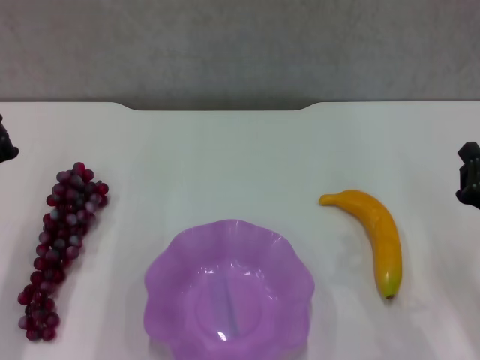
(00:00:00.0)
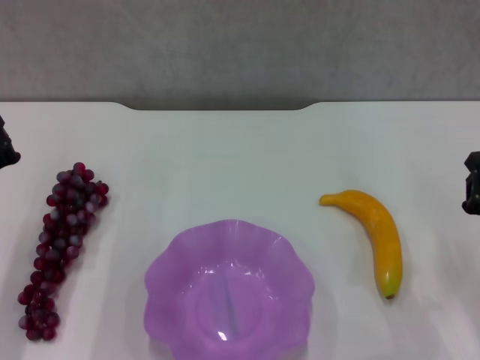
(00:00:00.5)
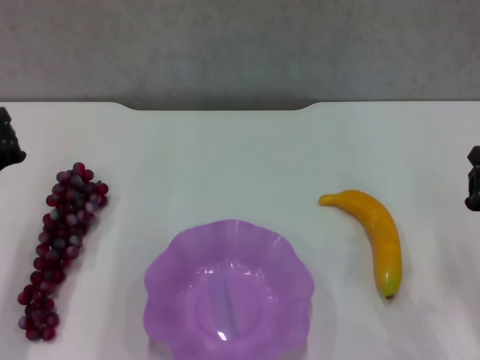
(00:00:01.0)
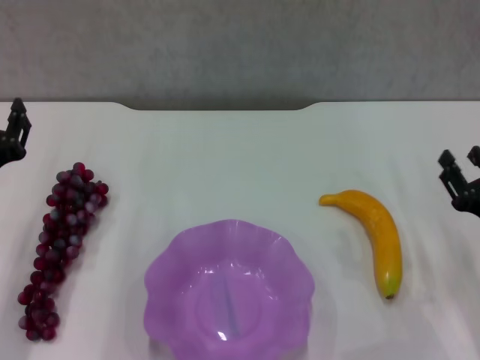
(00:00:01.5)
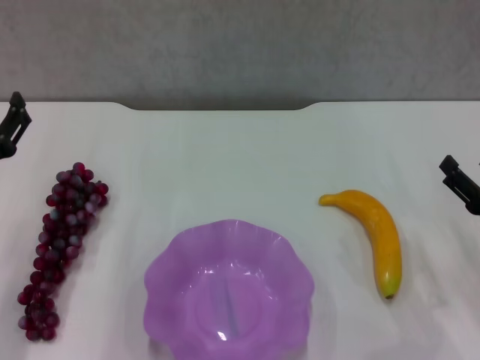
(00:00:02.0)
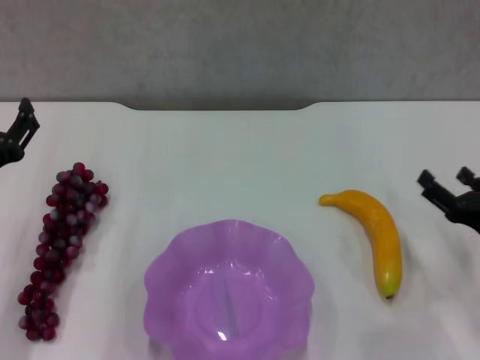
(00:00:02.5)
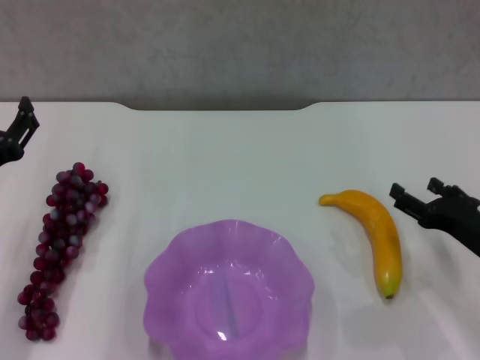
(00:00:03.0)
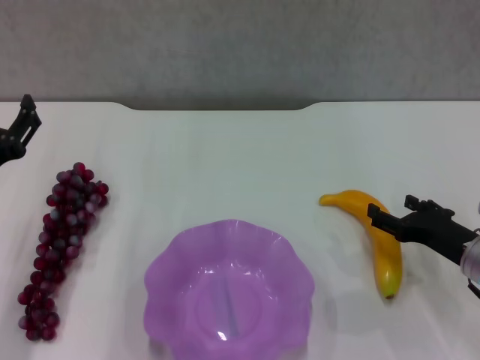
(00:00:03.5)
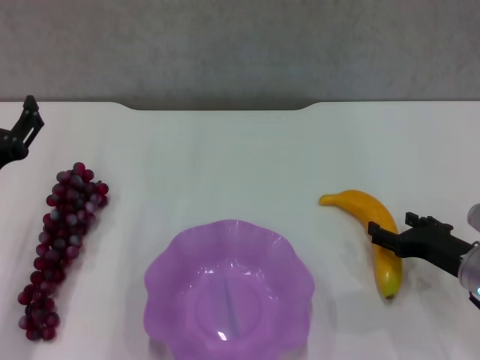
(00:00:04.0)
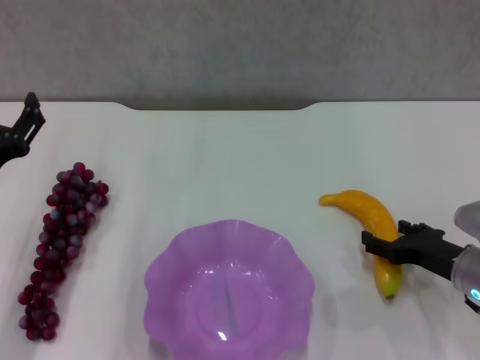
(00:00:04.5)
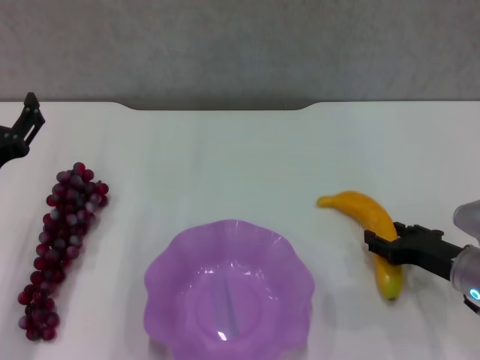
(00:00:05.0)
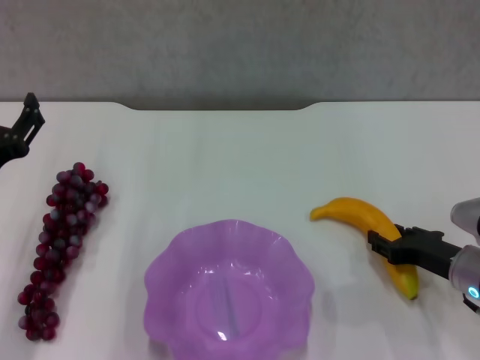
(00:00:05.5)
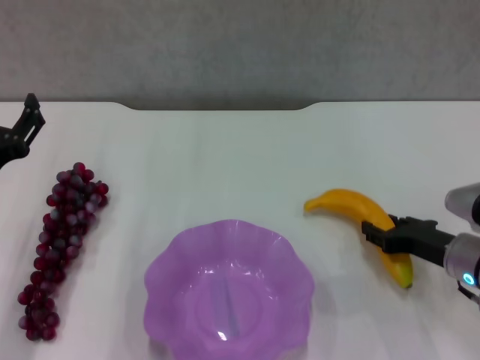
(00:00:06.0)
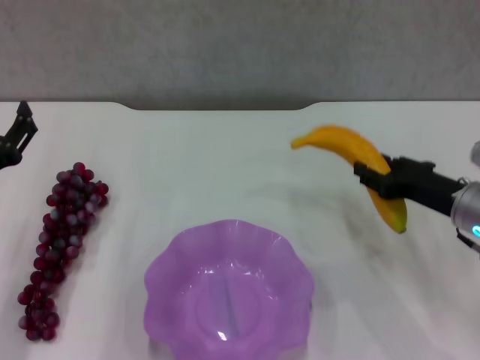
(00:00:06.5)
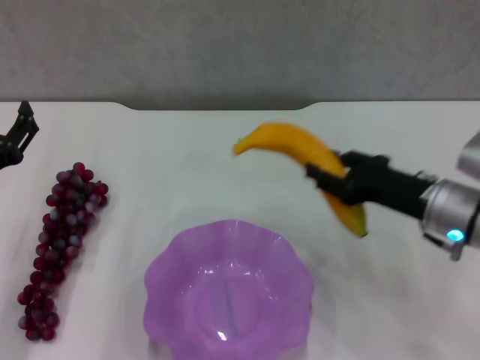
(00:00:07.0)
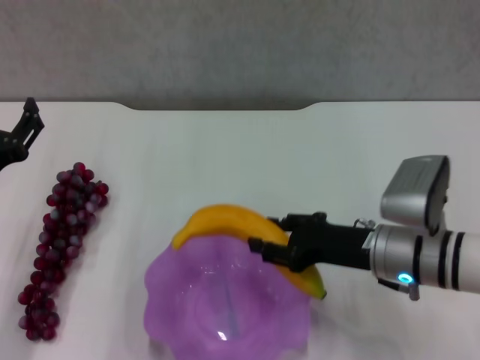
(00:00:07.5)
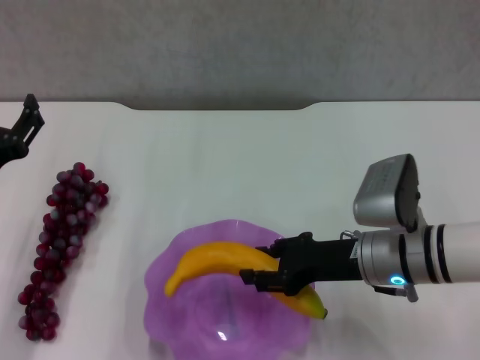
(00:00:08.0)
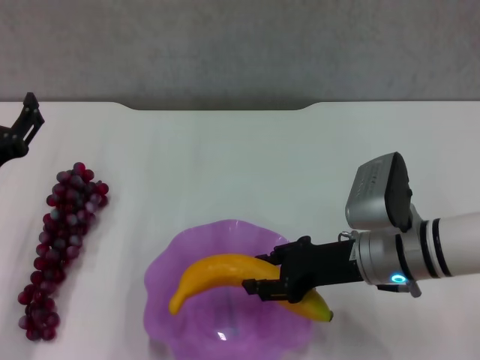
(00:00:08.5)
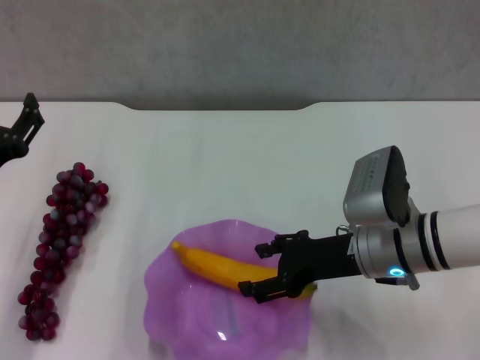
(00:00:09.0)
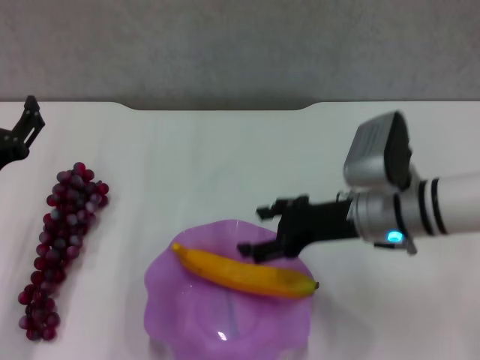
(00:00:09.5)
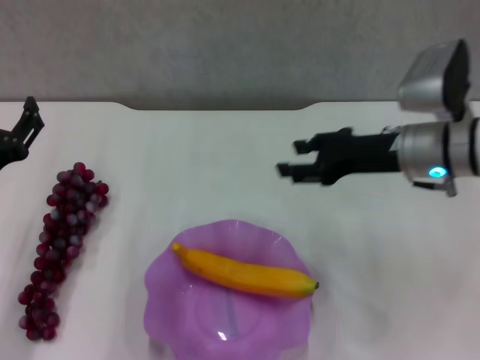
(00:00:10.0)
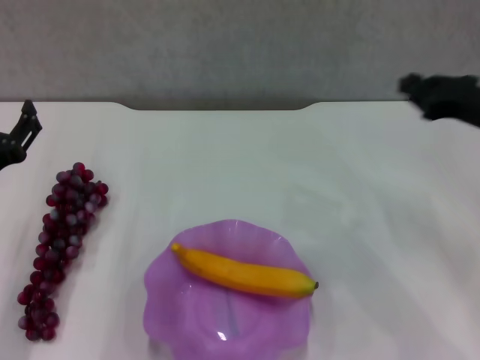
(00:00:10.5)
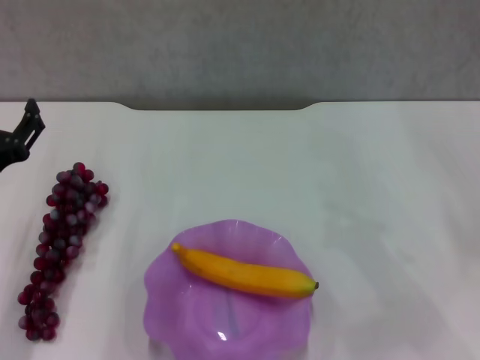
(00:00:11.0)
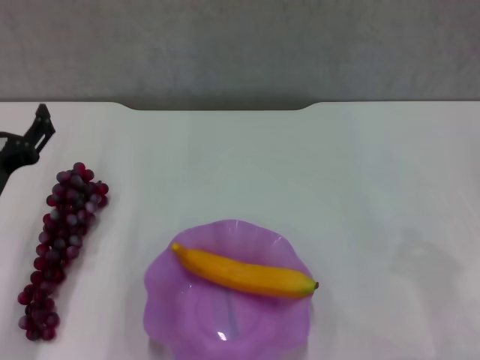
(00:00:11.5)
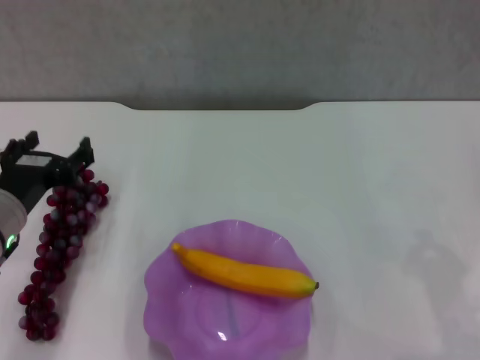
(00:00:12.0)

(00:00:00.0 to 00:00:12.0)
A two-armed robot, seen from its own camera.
Step, 00:00:00.0 - 00:00:05.0: Grasp the banana with right gripper.
Step, 00:00:05.5 - 00:00:09.5: Place the banana in the purple plate with right gripper.
00:00:00.0 - 00:00:02.0: The left gripper opens. The right gripper opens.
00:00:02.0 - 00:00:04.0: The right gripper ends up roughly 5 cm from where it was.
00:00:04.0 - 00:00:06.0: The right gripper closes its fingers.
00:00:06.0 - 00:00:08.0: The right gripper moves to the left, some 10 cm.
00:00:08.0 - 00:00:10.0: The right gripper heads upward and forward, covering approximately 10 cm.
00:00:10.0 - 00:00:12.0: The right gripper heads to the right, backward and downward, covering about 20 cm, and closes its fingers.

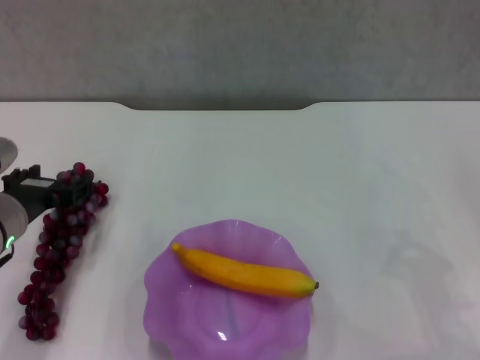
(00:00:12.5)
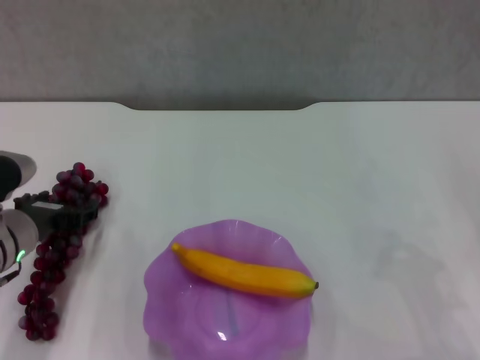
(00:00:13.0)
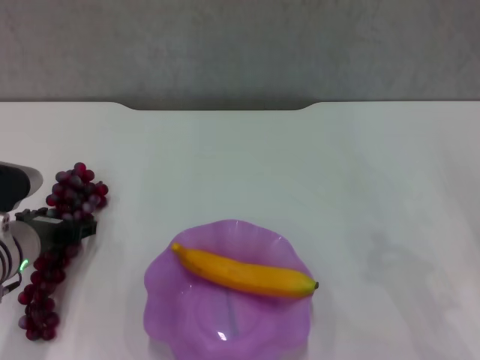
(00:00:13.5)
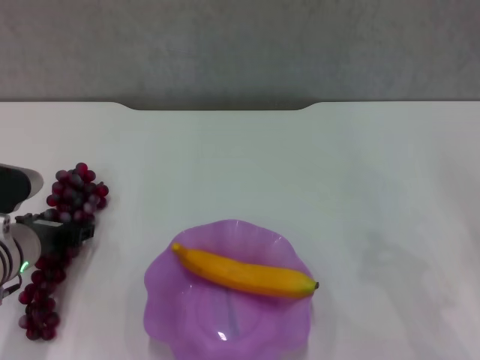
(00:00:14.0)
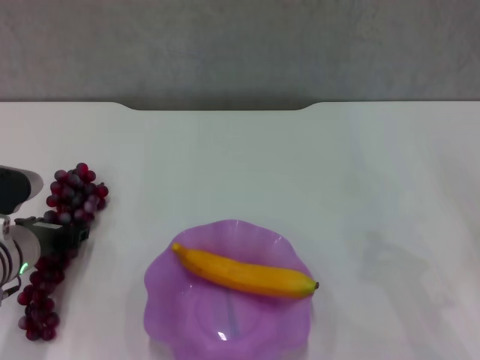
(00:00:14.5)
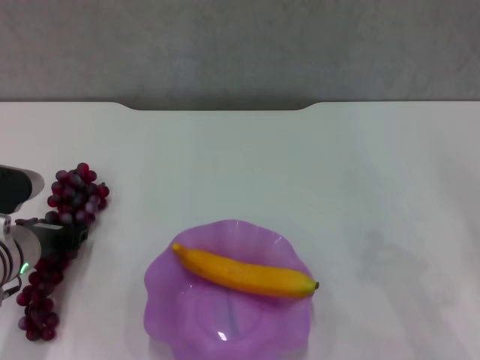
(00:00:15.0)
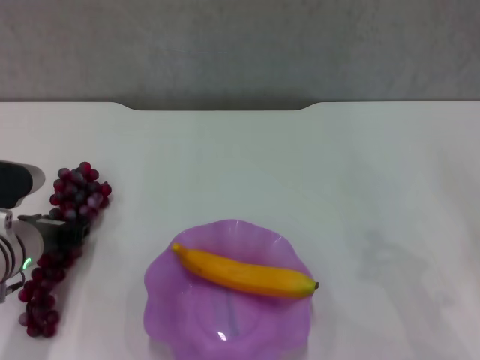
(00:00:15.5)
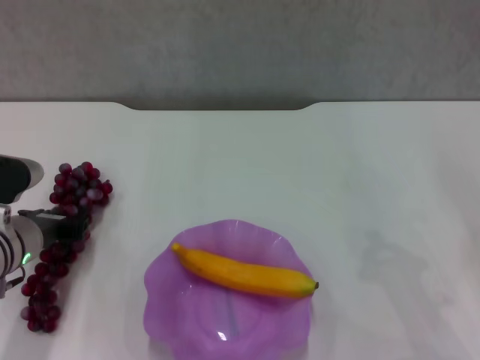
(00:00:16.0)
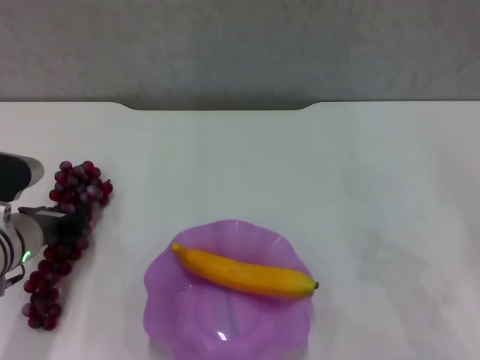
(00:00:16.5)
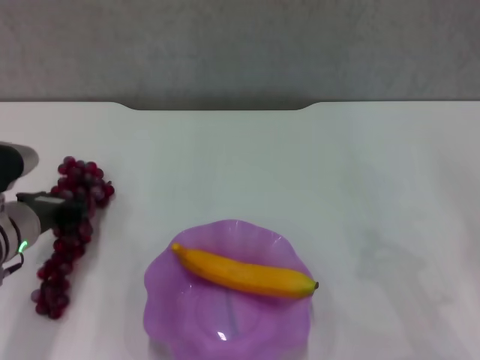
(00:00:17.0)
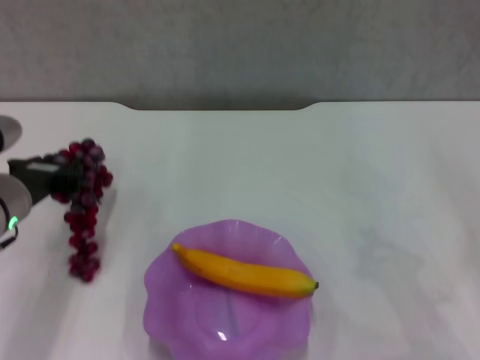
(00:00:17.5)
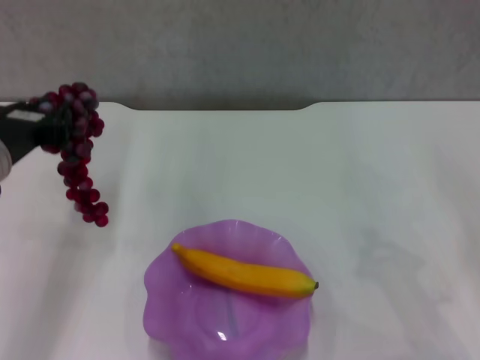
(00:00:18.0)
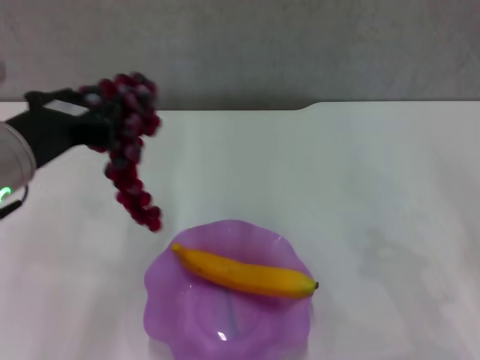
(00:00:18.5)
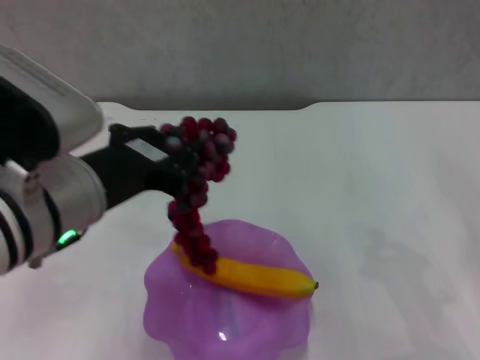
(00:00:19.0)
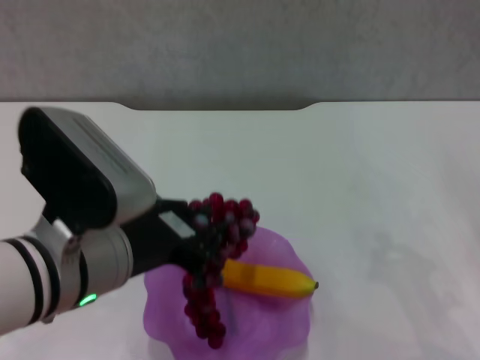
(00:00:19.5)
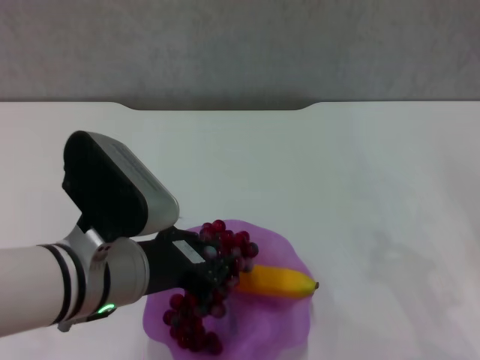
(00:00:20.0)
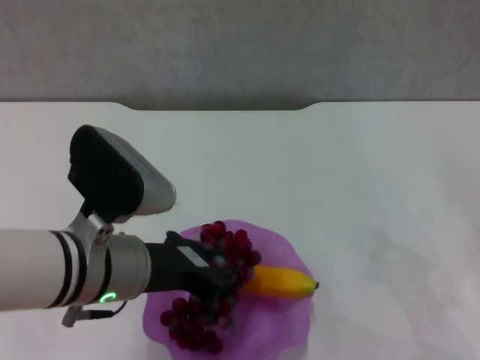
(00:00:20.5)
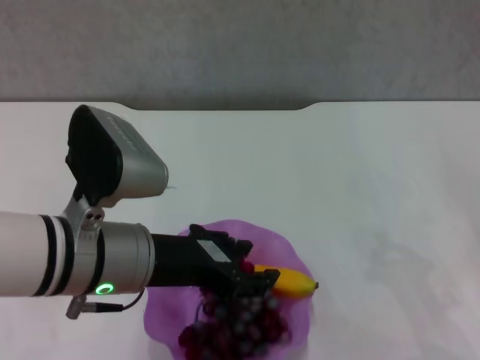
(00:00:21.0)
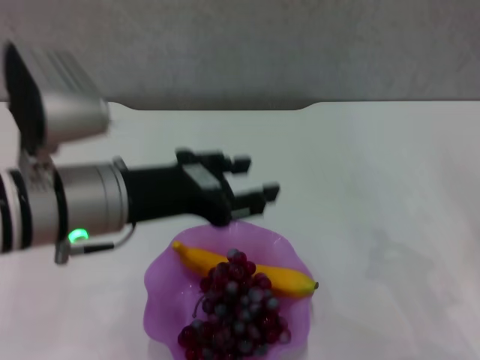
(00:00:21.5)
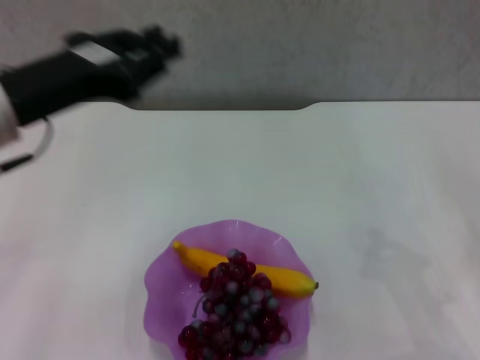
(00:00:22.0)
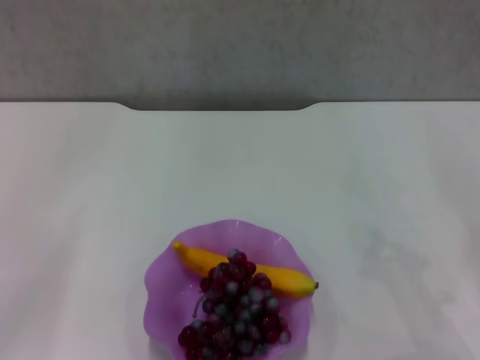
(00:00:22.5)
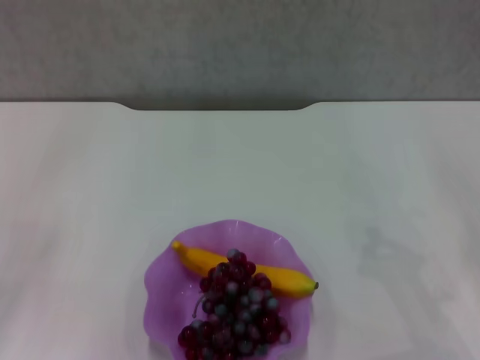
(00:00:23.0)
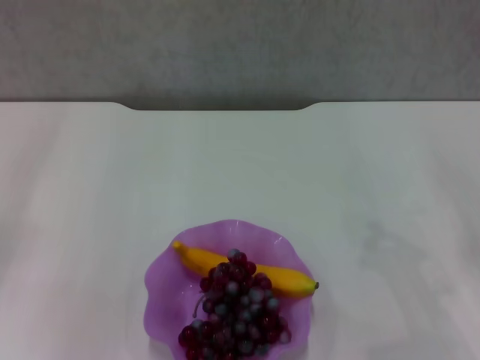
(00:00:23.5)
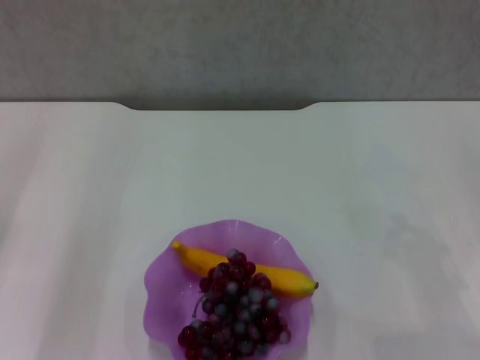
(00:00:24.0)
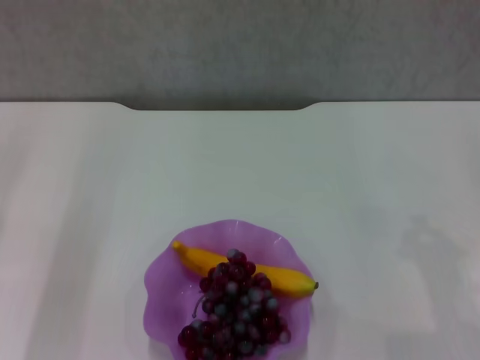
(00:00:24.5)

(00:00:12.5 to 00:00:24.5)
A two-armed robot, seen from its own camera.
Step, 00:00:12.5 - 00:00:15.0: Grasp the grape with left gripper.
Step, 00:00:15.5 - 00:00:21.0: Place the grape in the purple plate with left gripper.
00:00:12.5 - 00:00:16.5: The grippers move only a little.
00:00:16.5 - 00:00:18.5: The left gripper goes roughly 15 cm upward.
00:00:18.5 - 00:00:20.5: The left gripper heads downward and to the right, covering some 10 cm.
00:00:20.5 - 00:00:22.5: The left gripper heads to the left, covering about 15 cm, and opens and closes again.
00:00:22.5 - 00:00:24.5: The left gripper goes some 10 cm downward and to the left.
